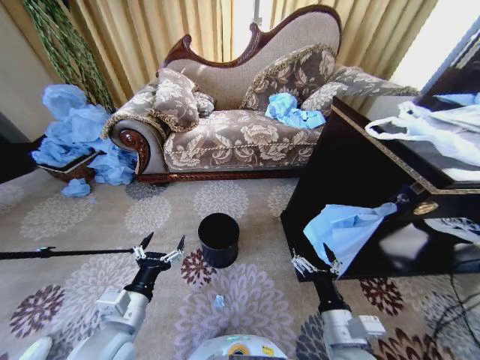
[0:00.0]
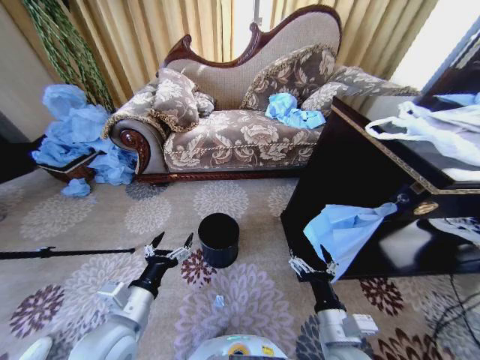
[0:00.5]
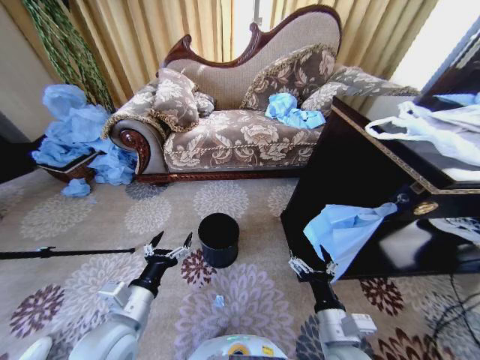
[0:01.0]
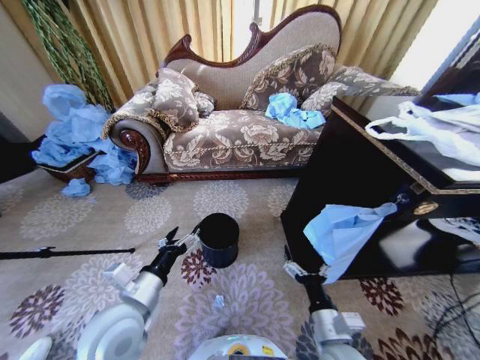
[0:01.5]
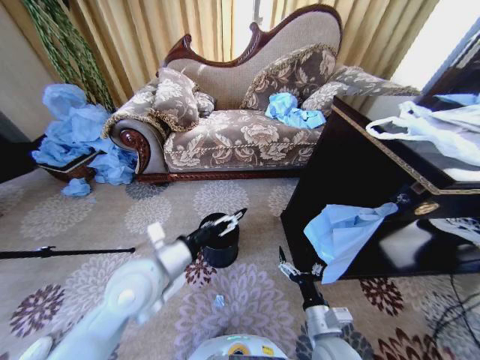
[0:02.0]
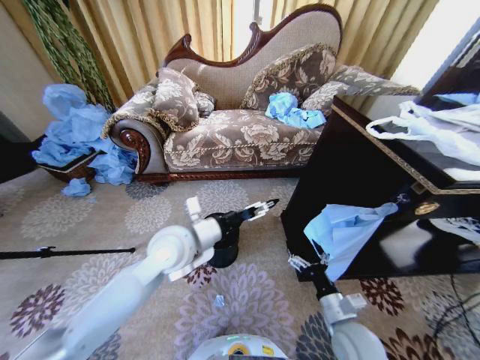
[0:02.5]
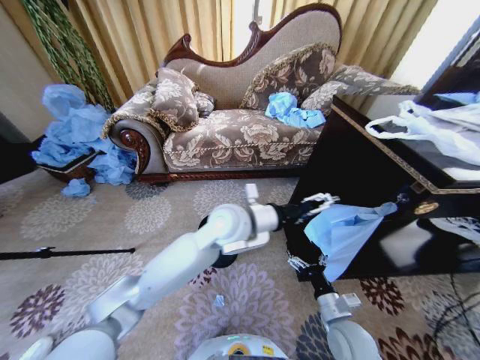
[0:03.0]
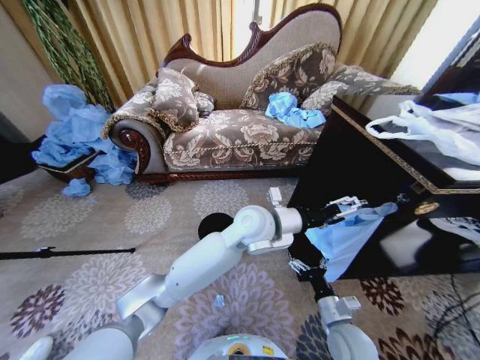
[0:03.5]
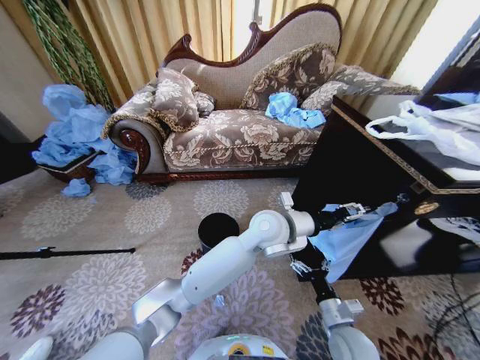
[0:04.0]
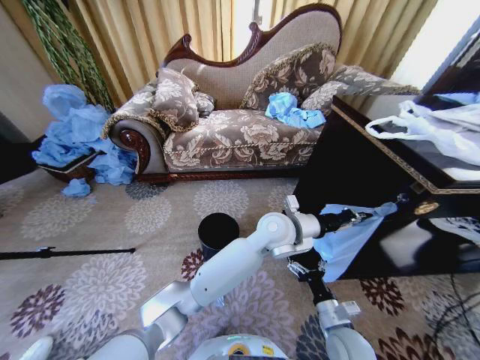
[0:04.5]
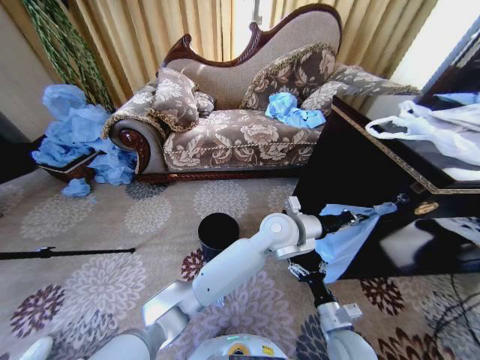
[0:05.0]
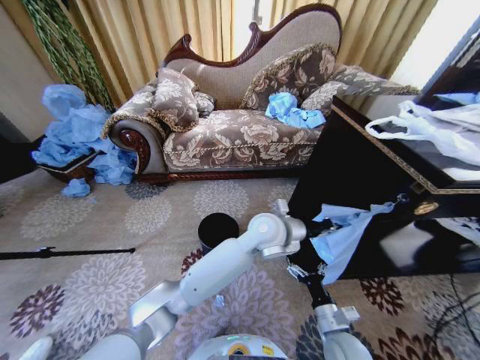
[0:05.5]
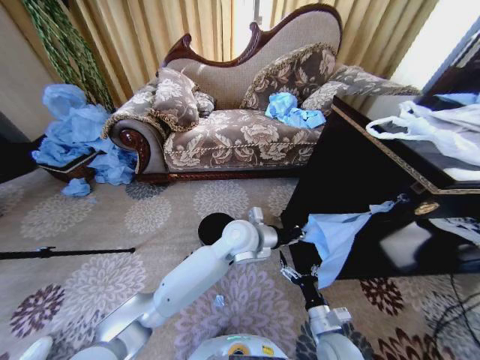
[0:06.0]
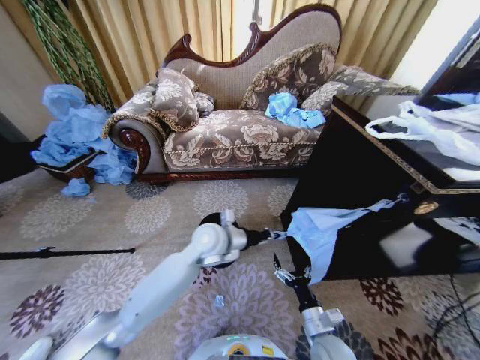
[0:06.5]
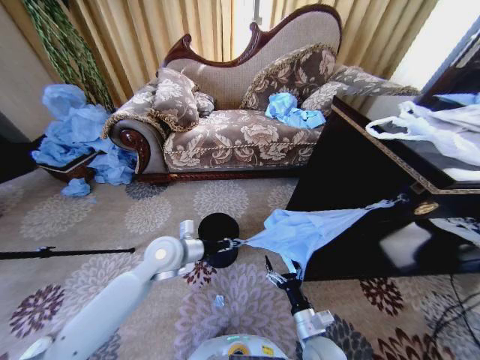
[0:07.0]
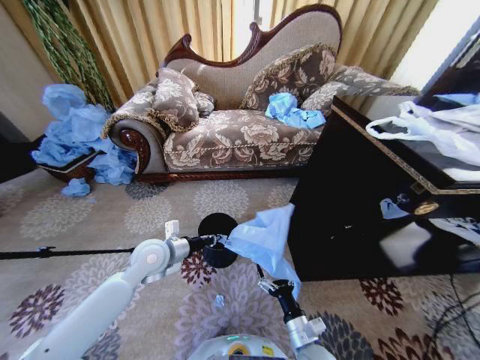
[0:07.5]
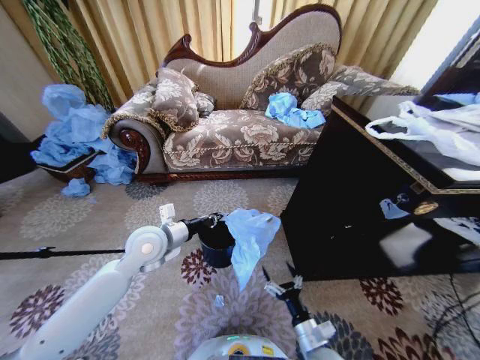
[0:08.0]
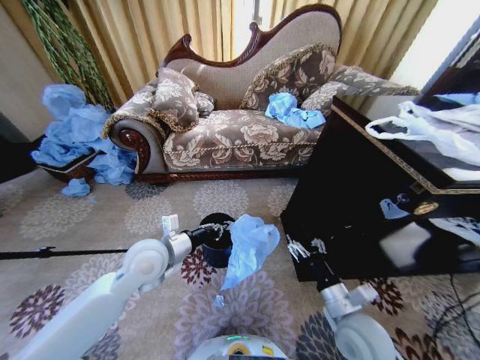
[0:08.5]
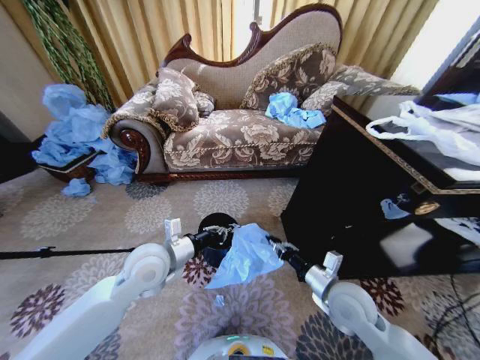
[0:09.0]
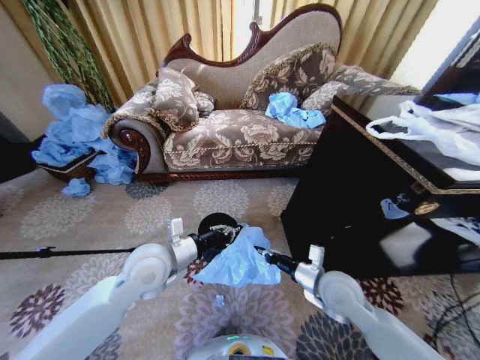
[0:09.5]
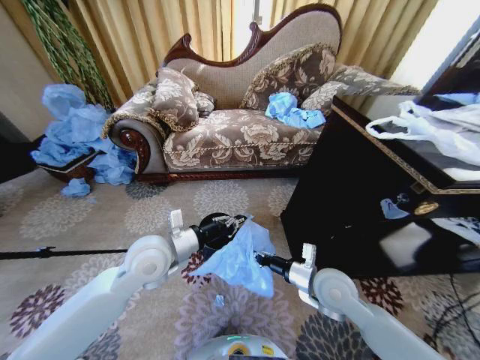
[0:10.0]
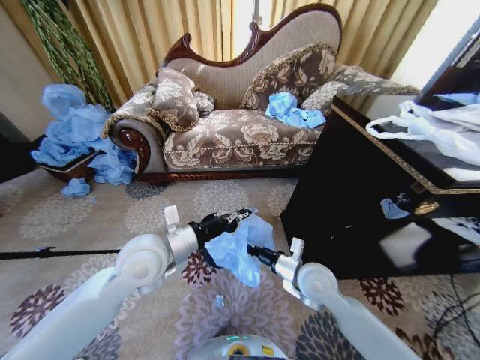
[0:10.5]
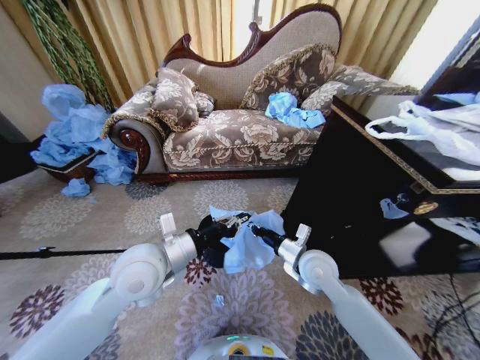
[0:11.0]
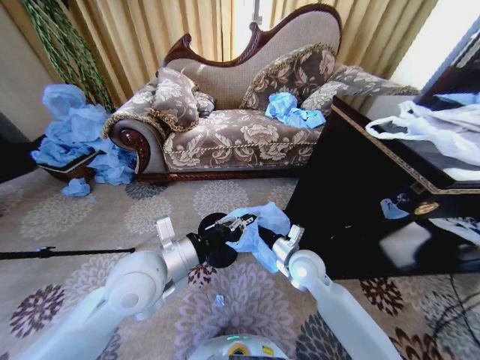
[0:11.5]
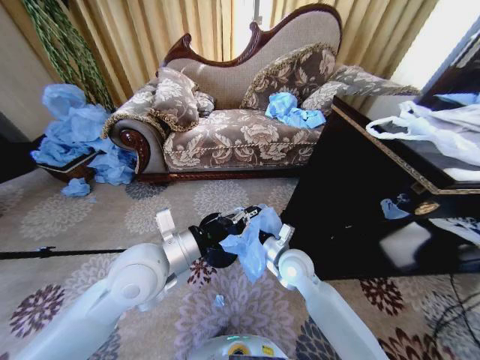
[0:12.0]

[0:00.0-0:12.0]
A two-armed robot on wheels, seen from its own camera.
Task of the whole recording: Place a garbage bag over the trash bin.
0:02.0 to 0:04.0: The left gripper goes some 30 cm to the right and forward, and closes its fingers; the right gripper goes roughly 5 cm to the right.
0:04.0 to 0:06.0: The left gripper moves to the left, about 5 cm, and closes.
0:06.0 to 0:08.0: The left gripper moves to the left, about 25 cm.
0:08.0 to 0:10.0: The right gripper moves upward and forward, roughly 20 cm, and closes its fingers, while the left gripper changes place by some 5 cm.
0:10.0 to 0:12.0: The right gripper moves to the left and forward, roughly 10 cm. Meanwhile the left gripper changes place by approximately 5 cm.

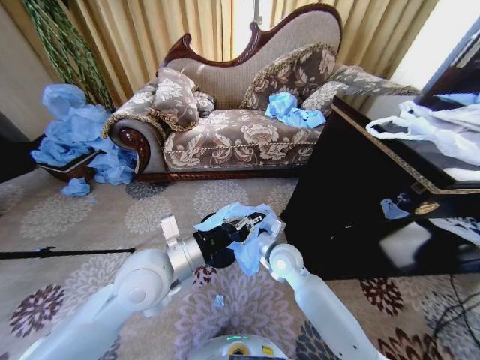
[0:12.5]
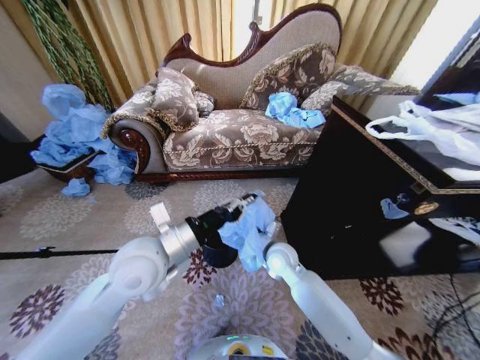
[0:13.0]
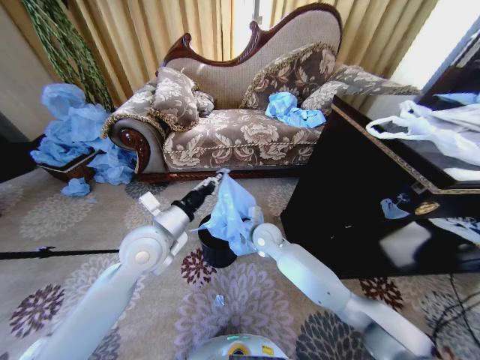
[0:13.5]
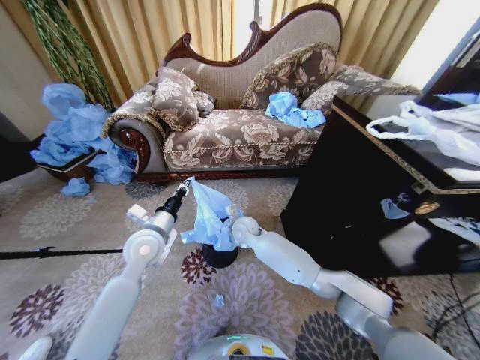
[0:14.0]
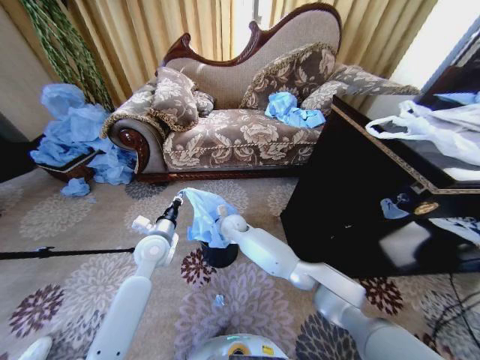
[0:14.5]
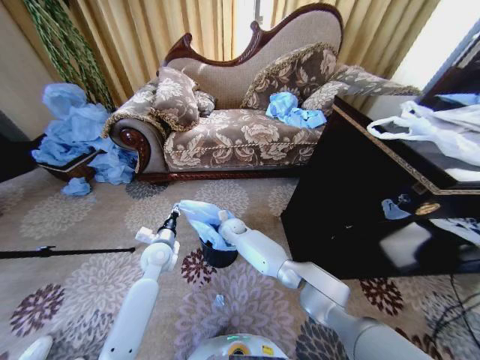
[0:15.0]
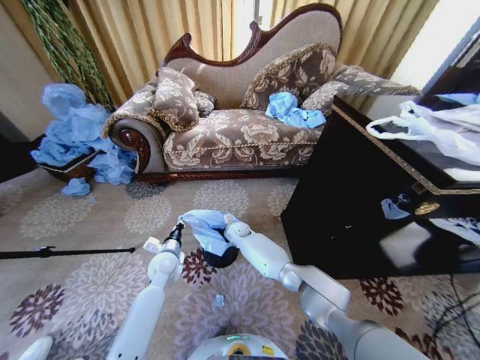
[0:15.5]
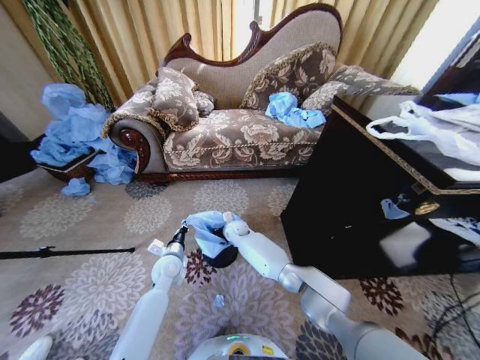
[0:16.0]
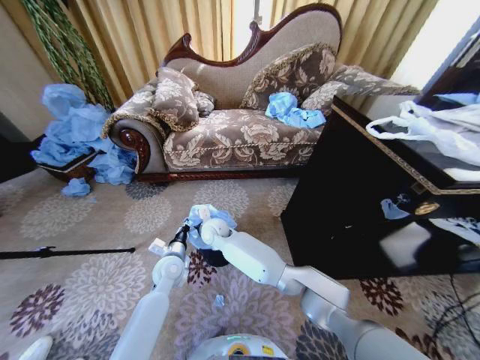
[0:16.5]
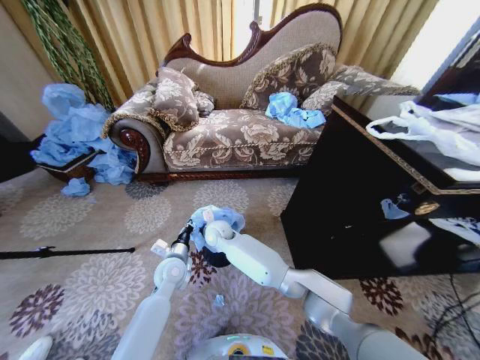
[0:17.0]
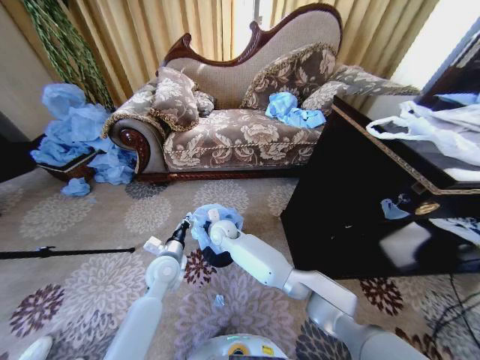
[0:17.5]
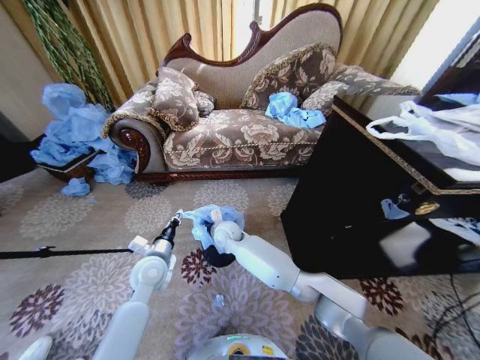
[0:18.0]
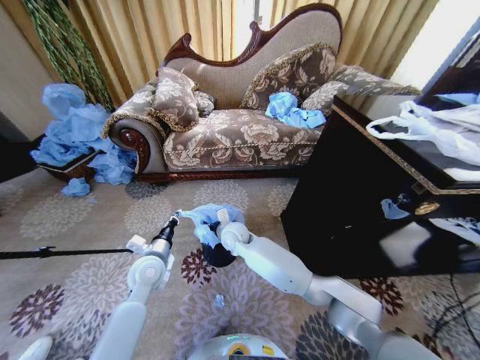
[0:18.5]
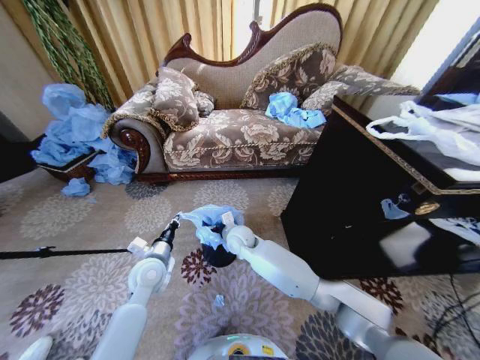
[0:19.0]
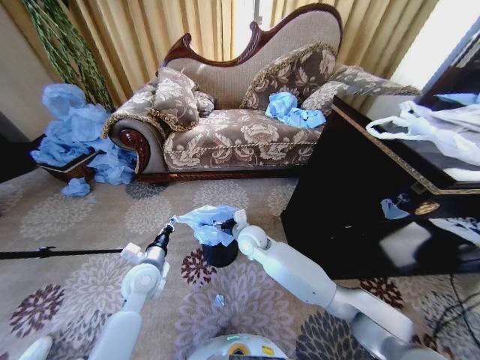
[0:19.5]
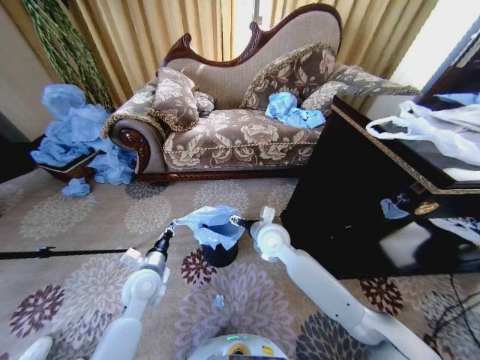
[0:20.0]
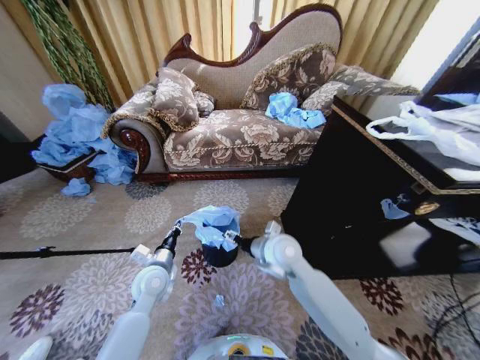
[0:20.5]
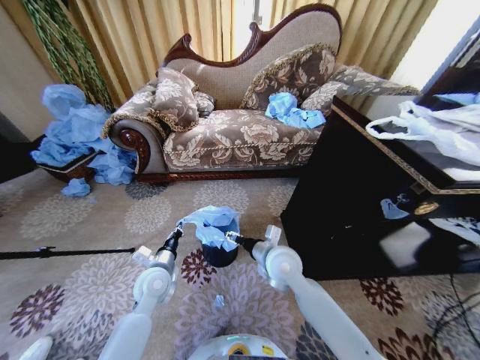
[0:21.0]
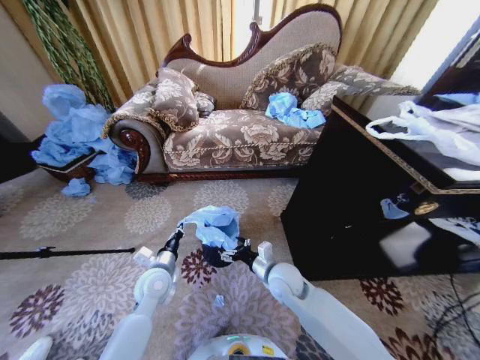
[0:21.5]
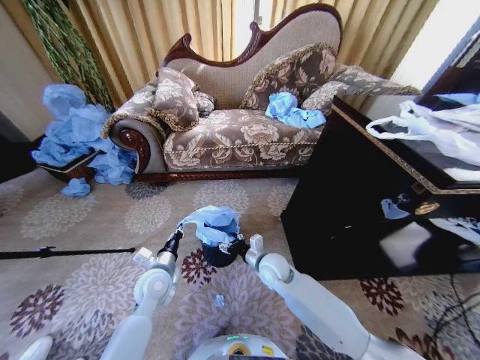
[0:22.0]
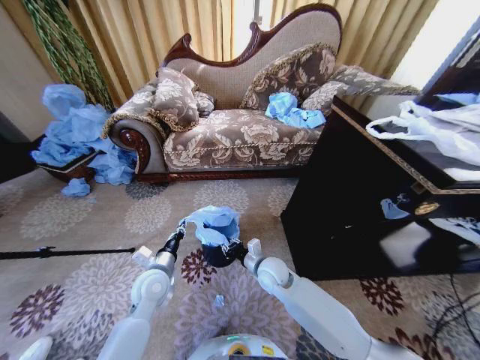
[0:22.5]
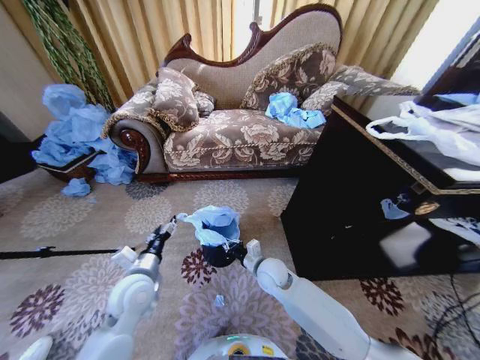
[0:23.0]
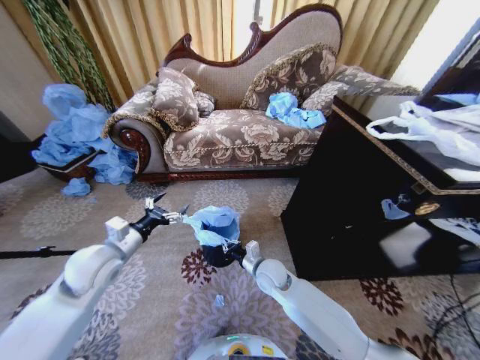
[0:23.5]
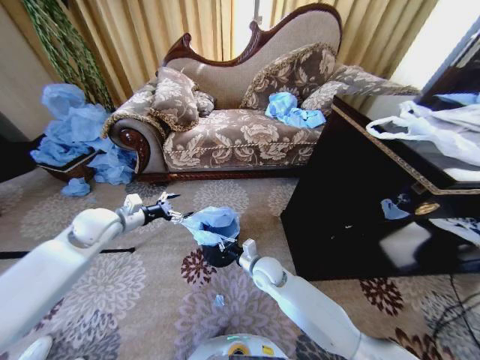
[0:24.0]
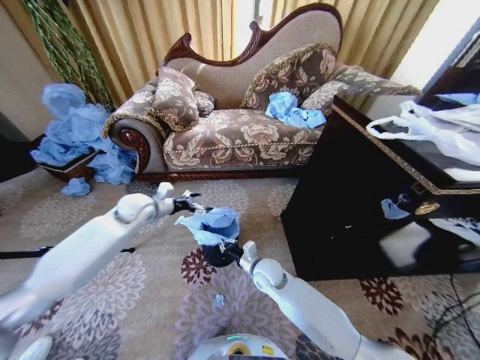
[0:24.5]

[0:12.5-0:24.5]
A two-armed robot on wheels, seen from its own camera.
Task of the whole recording: Place a garbage bag over the trash bin.
0:12.5 to 0:14.5: The right gripper moves to the left and forward, approximately 20 cm; the left gripper shifts roughly 20 cm downward, forward and to the left.
0:14.5 to 0:16.5: The left gripper travels downward by about 10 cm, while the right gripper heads to the left, covering some 5 cm, travels downward and back again, approximately 10 cm each way, and opens its fingers.
0:16.5 to 0:18.5: The right gripper shifts about 5 cm to the right, and opens its fingers; the left gripper shifts roughly 5 cm upward.
0:18.5 to 0:20.5: The right gripper shifts roughly 15 cm to the right, backward and upward.
0:20.5 to 0:22.5: The right gripper moves downward, roughly 15 cm, and closes up.
0:22.5 to 0:24.5: The left gripper travels forward and upward by about 20 cm, and opens.

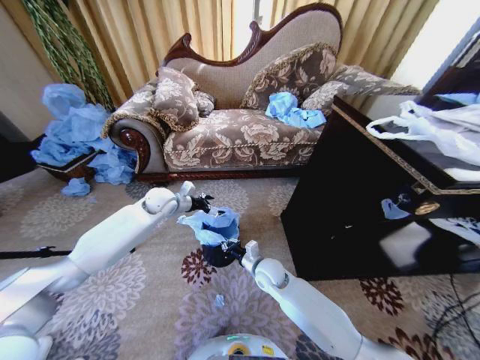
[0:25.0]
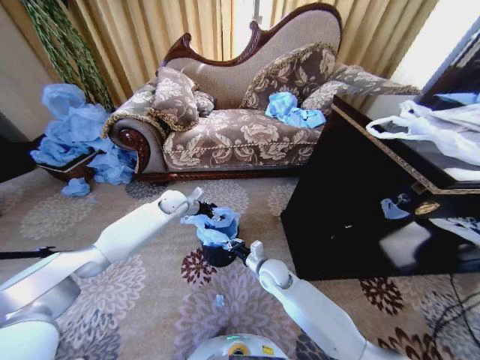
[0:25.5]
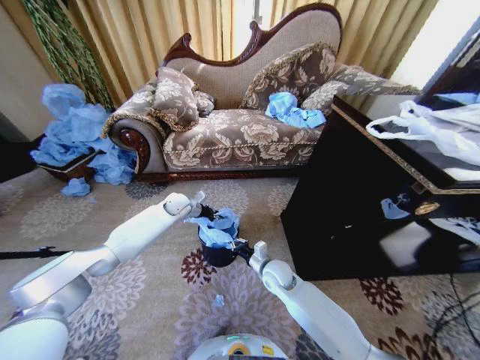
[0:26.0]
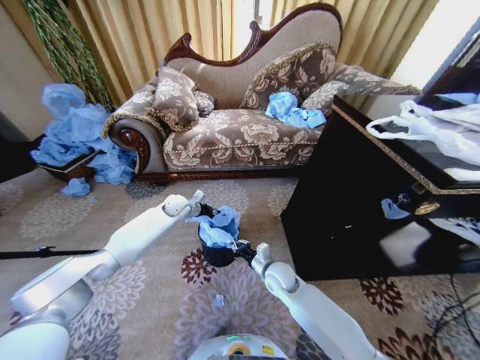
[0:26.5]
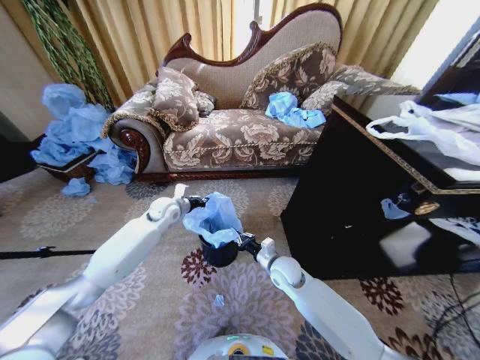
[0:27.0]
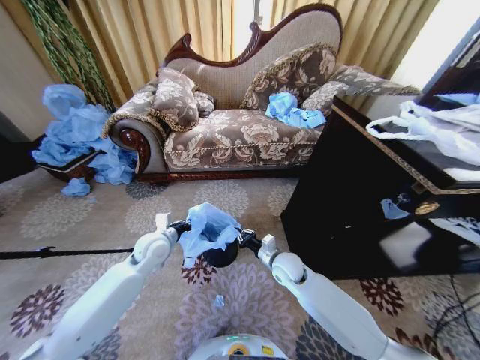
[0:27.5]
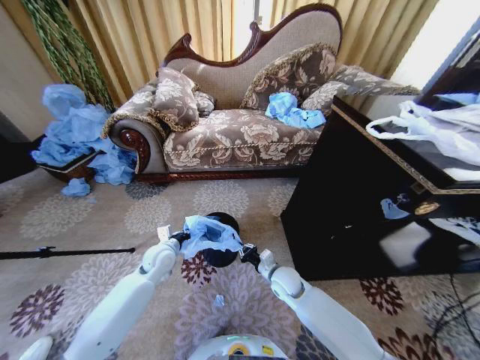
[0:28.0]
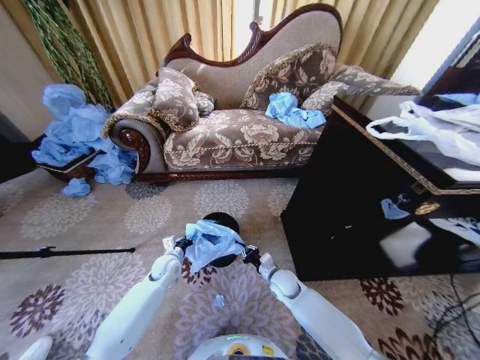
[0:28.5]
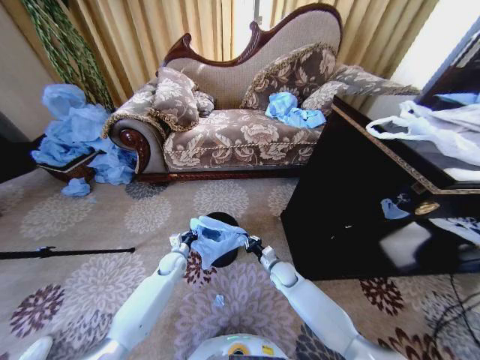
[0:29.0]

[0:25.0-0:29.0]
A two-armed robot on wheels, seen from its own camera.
Task of the whole recording: Place a garbage bag over the trash bin.
0:25.0 to 0:27.0: The right gripper moves to the right, some 5 cm. The left gripper closes its fingers.
0:27.0 to 0:29.0: The right gripper heads downward, covering about 10 cm, while the left gripper heads downward and backward, covering some 25 cm.
